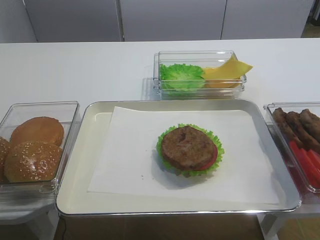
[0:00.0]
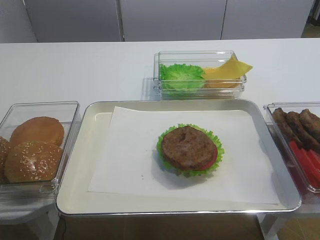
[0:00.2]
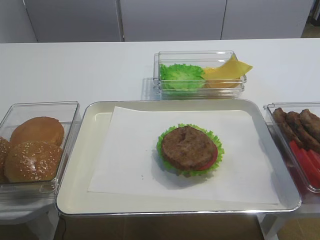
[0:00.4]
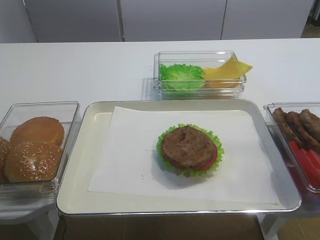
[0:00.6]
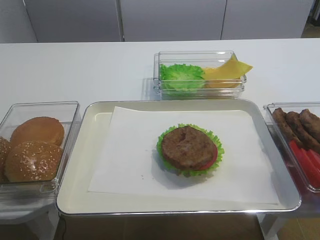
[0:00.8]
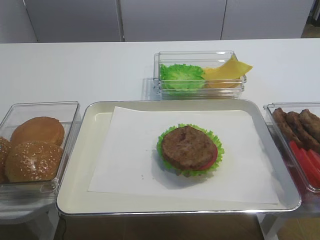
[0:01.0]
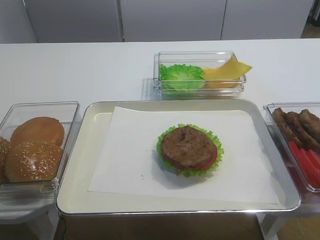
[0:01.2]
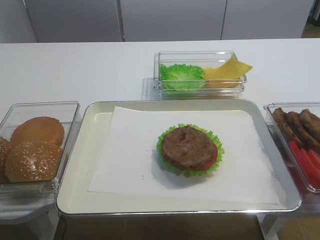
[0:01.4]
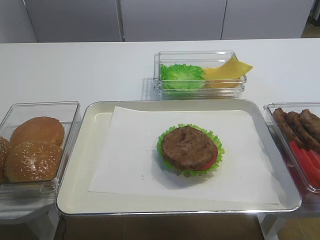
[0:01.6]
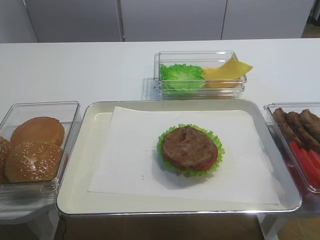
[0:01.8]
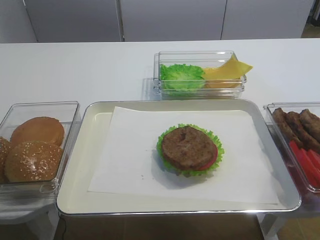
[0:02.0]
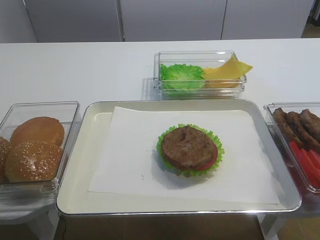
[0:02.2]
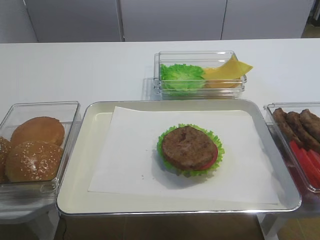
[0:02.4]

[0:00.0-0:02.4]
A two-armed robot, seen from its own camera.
0:00.0 to 0:01.2: The right gripper shifts approximately 25 cm backward.
